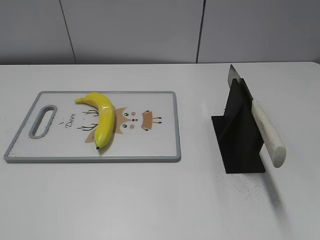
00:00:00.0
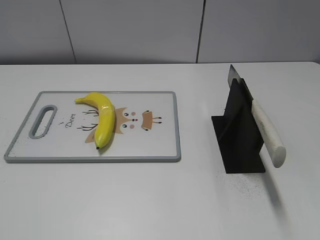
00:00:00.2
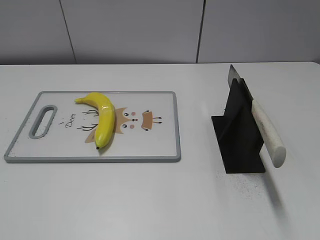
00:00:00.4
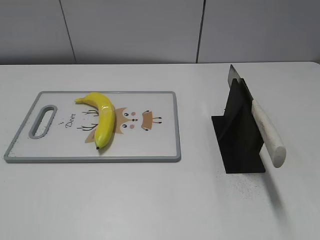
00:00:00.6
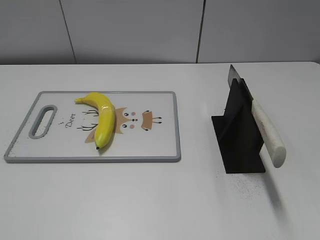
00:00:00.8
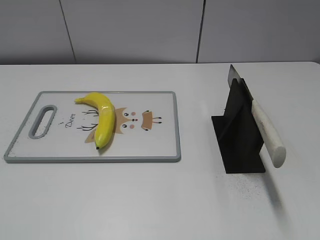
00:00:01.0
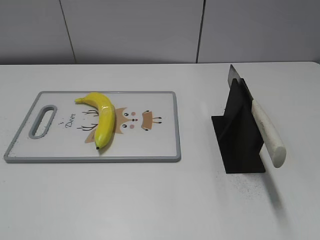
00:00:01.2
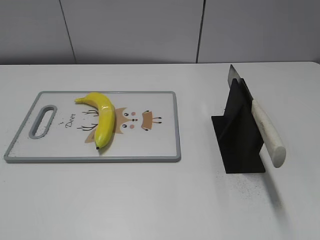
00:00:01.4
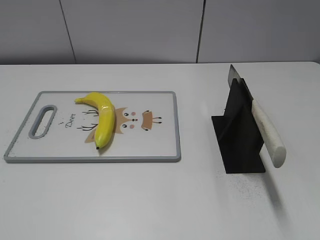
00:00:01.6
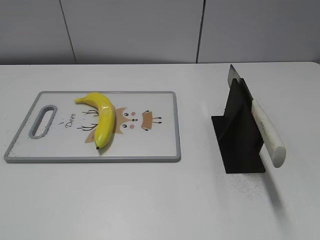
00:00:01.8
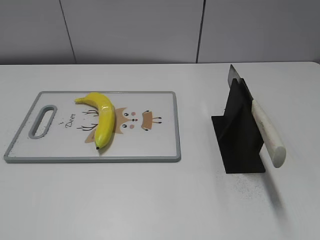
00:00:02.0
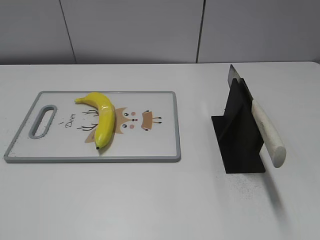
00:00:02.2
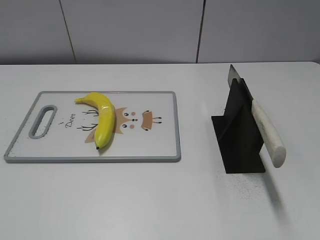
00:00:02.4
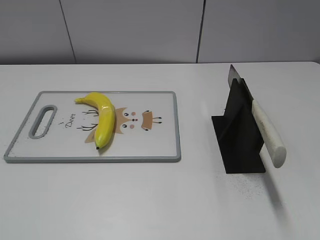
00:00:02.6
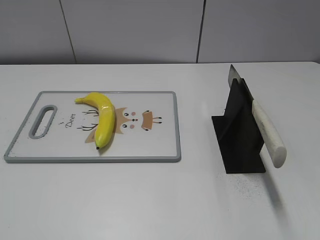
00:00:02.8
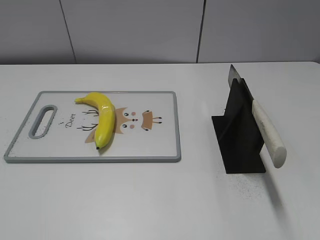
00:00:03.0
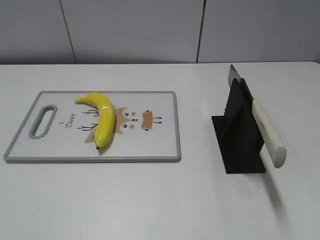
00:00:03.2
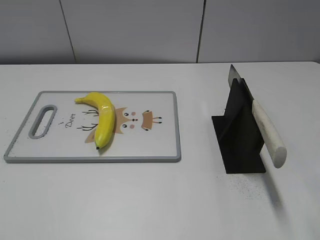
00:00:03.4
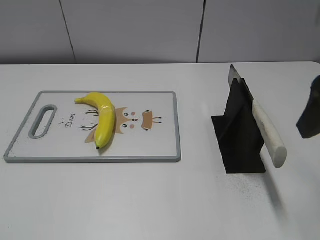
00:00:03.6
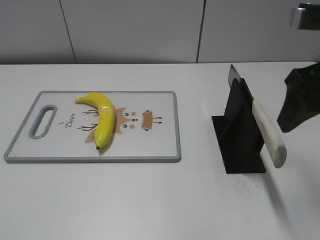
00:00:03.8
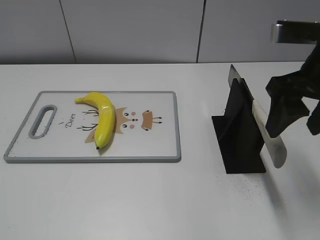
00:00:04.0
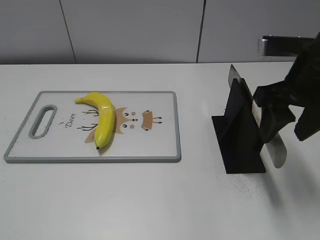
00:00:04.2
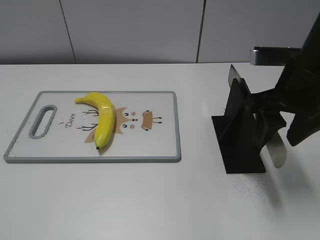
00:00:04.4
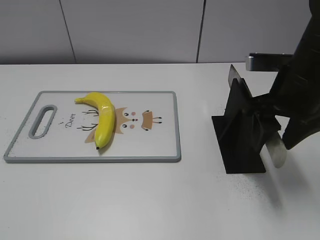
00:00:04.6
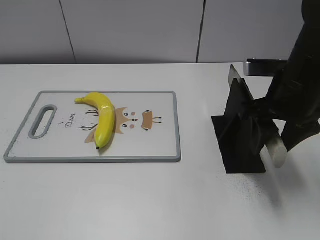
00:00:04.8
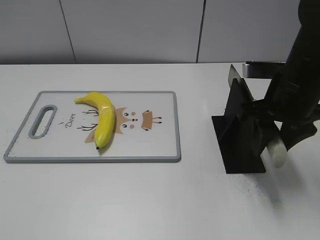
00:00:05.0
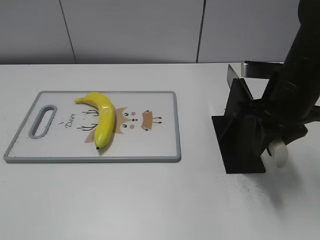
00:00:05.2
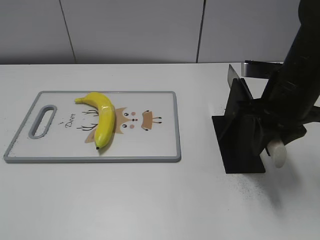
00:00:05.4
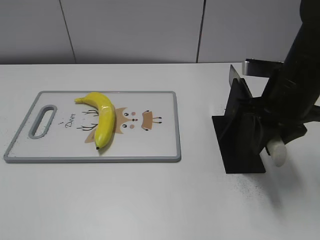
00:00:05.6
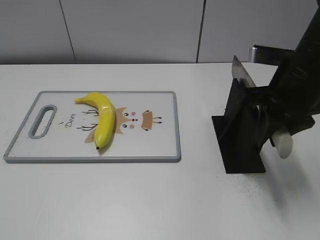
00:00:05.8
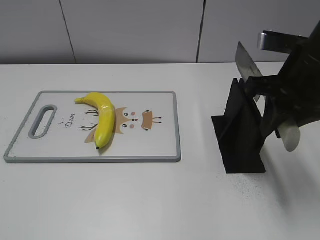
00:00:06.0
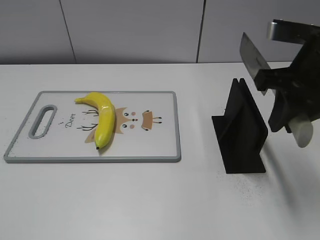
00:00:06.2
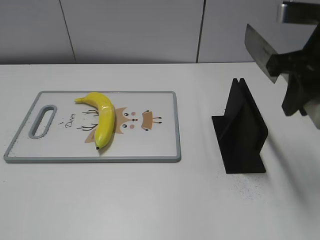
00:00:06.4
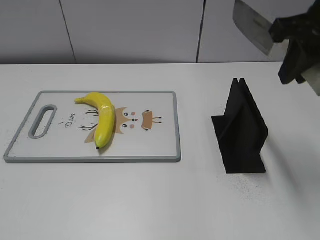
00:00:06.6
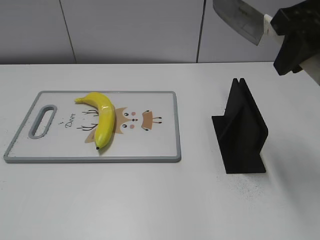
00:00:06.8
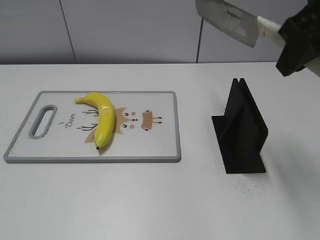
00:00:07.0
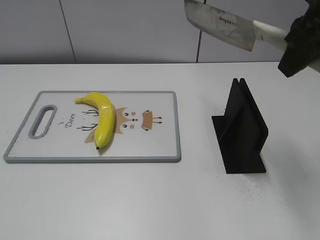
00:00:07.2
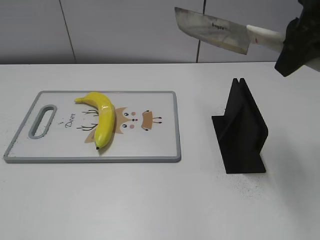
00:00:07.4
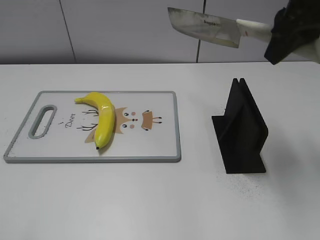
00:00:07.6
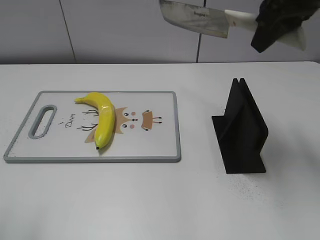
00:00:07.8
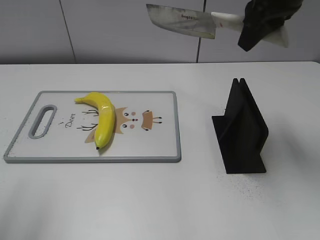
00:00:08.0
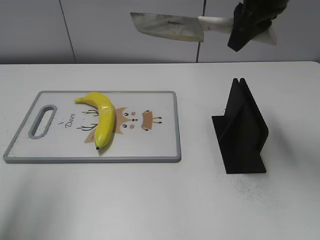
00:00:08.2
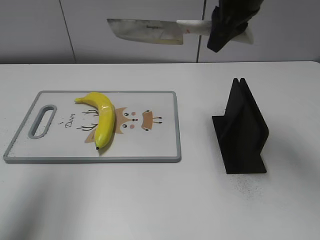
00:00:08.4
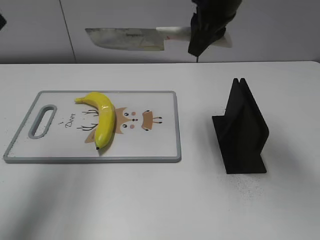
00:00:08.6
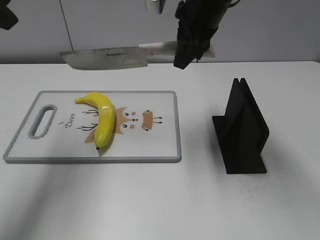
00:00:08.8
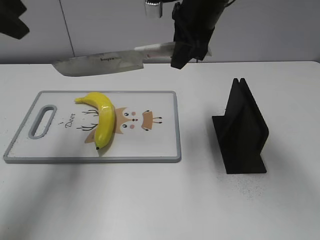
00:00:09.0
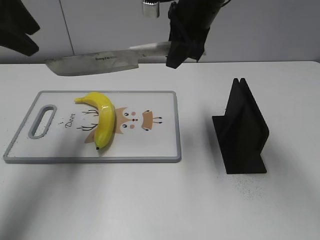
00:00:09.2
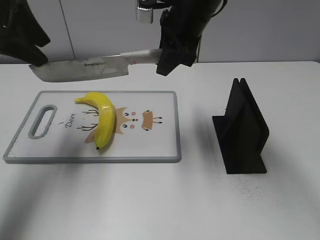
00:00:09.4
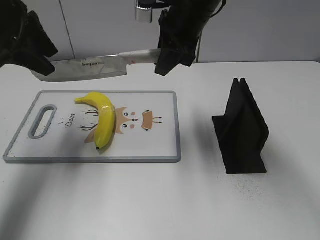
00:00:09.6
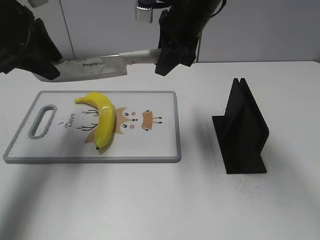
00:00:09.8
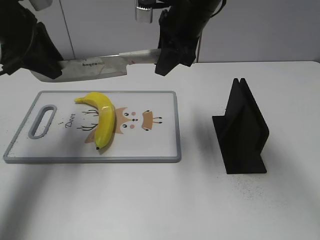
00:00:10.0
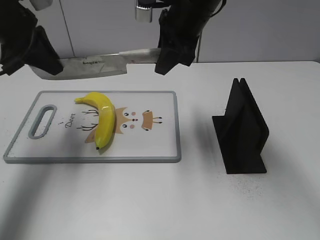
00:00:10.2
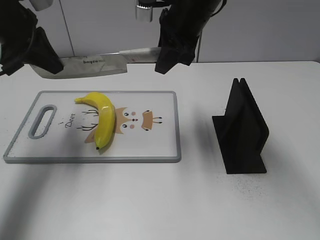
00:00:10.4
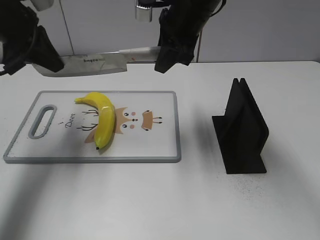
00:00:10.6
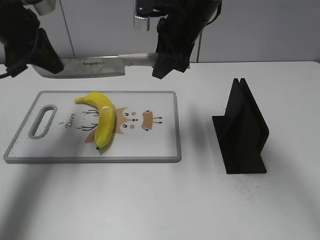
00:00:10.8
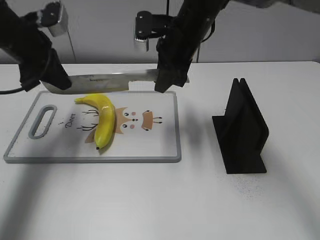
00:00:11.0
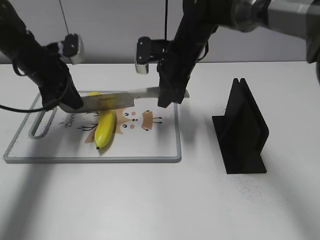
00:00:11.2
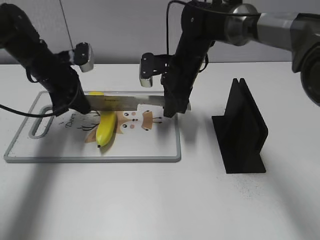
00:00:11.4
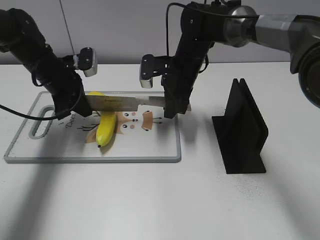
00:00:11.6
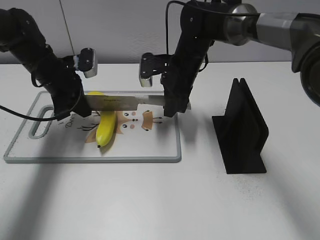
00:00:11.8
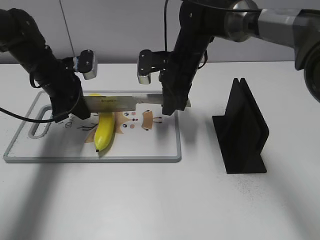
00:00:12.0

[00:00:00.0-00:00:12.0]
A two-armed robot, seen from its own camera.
Task of the whole recording: cut plastic banana.
Step, 00:00:00.0 to 00:00:06.4: Grab the knife handle with your right hand.
00:00:03.0 to 00:00:04.4: The right gripper heads forward, downward and to the left, covering roughly 20 cm.
00:00:04.4 to 00:00:06.0: The right gripper closes.
00:00:06.0 to 00:00:07.6: The left gripper heads upward and forward, covering roughly 10 cm. Meanwhile the right gripper shifts some 10 cm upward.
00:00:07.6 to 00:00:09.0: The left gripper moves forward, roughly 25 cm, while the right gripper goes approximately 15 cm to the left, forward and downward.
00:00:09.0 to 00:00:10.4: The left gripper goes about 10 cm downward and forward, and closes its fingers.
00:00:10.4 to 00:00:12.0: The two grippers go about 15 cm downward.

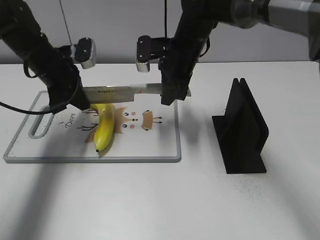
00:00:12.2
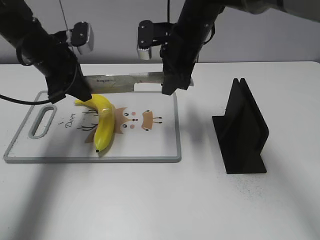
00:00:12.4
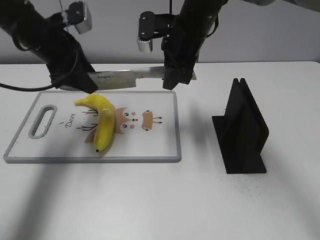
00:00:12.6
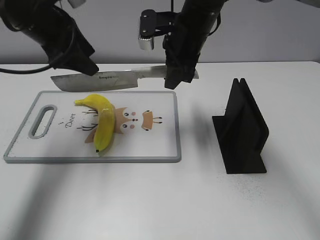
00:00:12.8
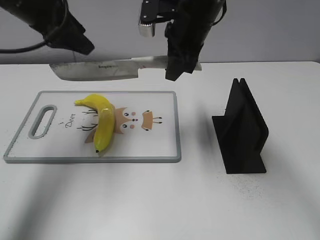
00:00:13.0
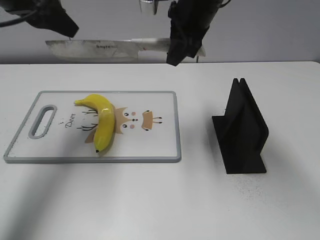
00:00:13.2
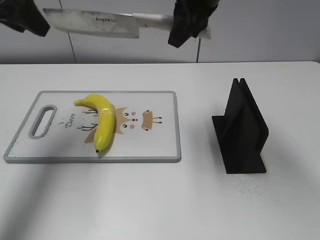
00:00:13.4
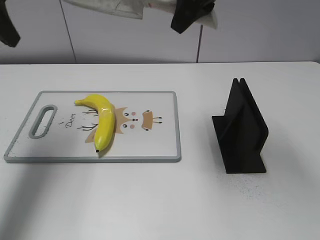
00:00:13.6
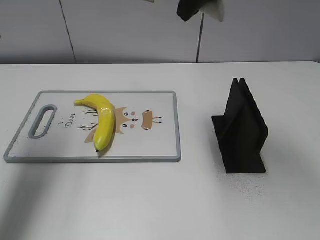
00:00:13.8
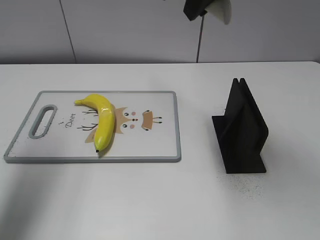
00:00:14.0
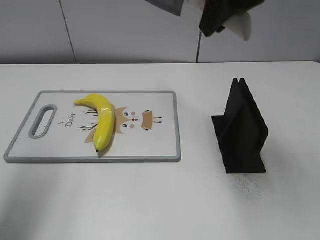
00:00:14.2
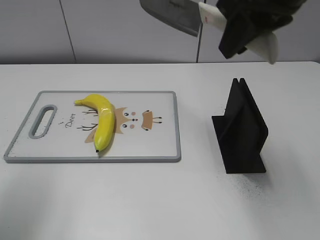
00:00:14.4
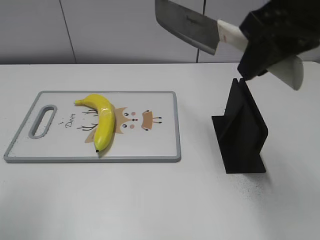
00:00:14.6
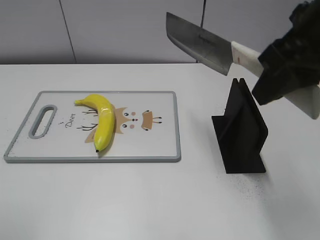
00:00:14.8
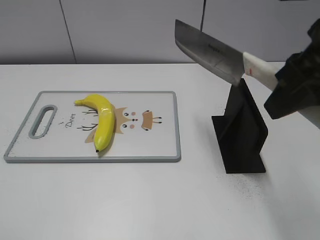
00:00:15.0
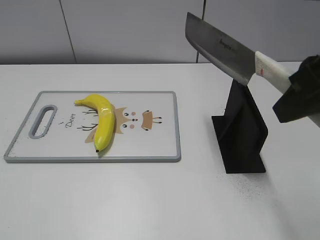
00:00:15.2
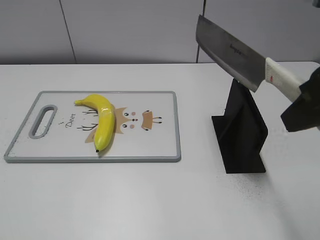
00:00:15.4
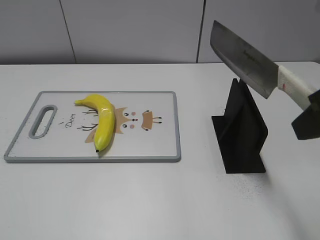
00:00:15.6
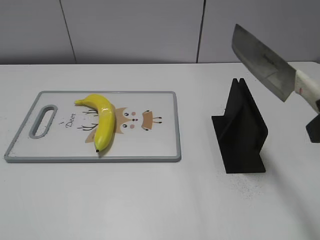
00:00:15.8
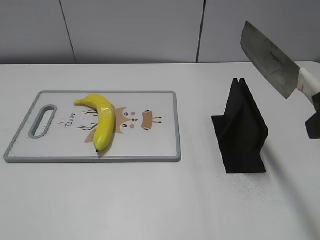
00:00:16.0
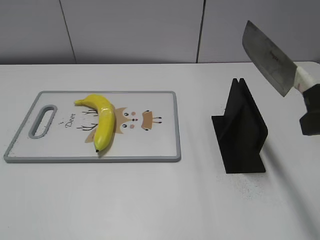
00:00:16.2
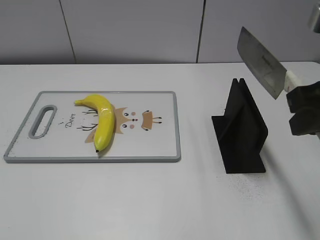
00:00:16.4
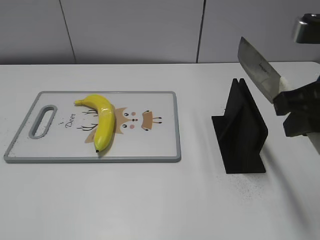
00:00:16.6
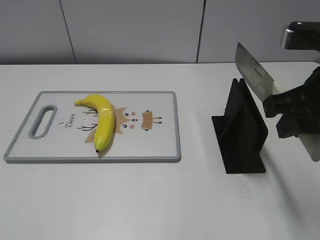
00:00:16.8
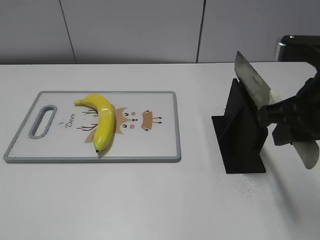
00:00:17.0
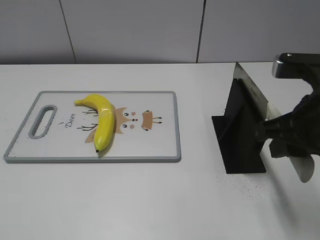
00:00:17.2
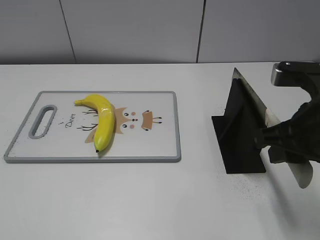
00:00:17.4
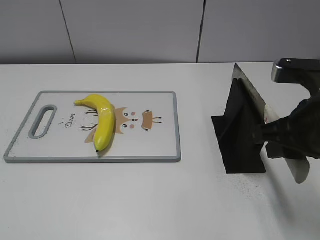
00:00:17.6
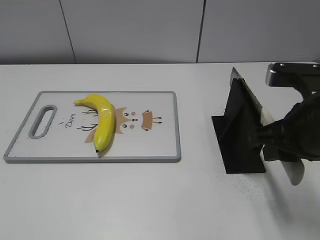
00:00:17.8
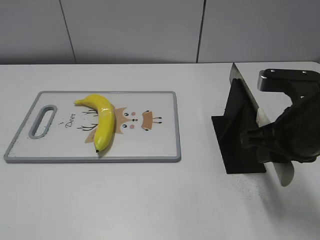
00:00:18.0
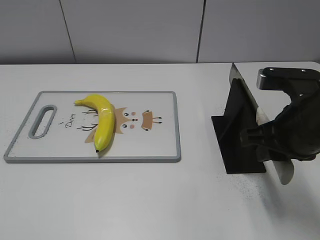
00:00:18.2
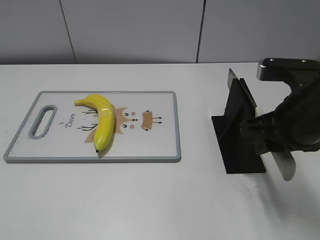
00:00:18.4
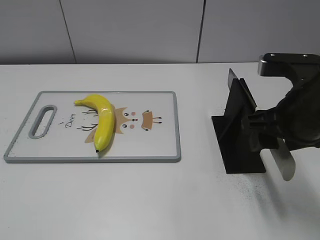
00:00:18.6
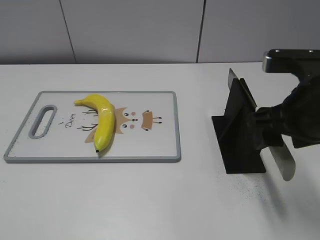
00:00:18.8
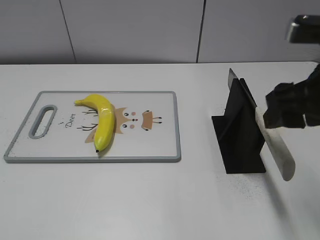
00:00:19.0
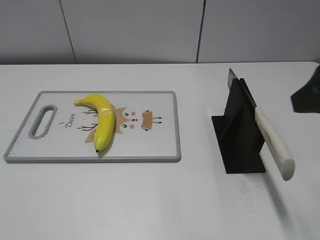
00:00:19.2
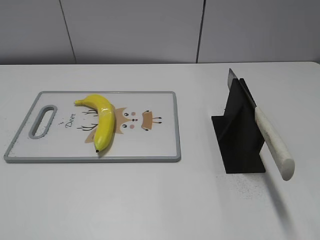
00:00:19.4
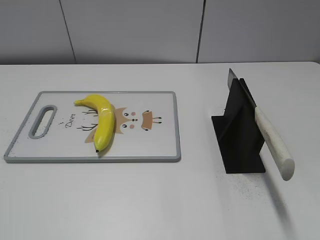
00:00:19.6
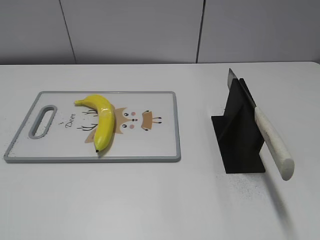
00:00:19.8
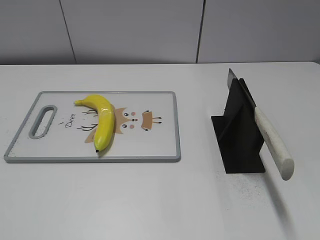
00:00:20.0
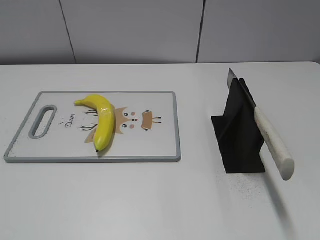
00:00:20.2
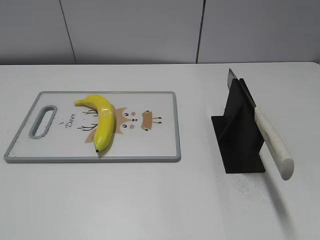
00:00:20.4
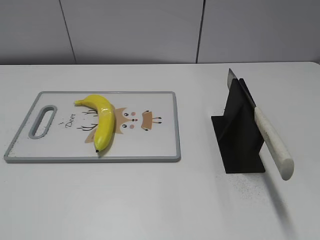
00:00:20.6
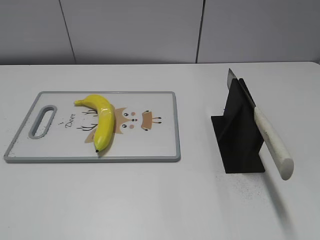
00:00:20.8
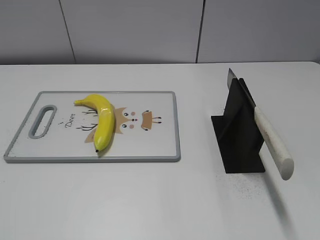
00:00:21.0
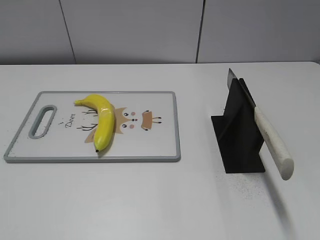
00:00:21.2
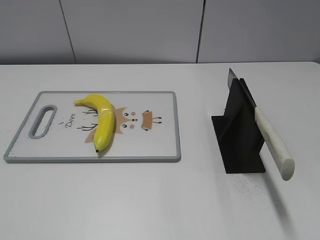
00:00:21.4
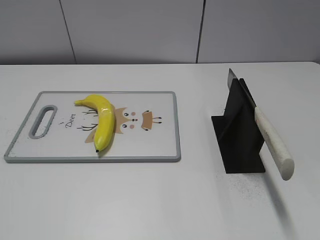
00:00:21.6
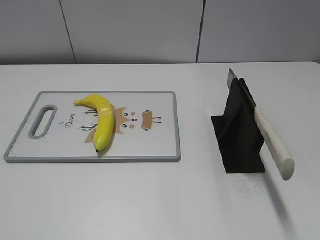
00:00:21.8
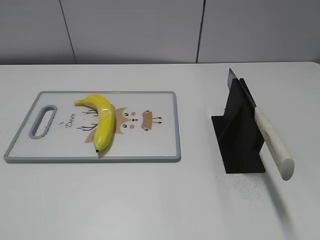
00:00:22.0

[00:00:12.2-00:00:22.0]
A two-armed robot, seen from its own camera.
Task of the whole recording: cut plastic banana.
Step, 00:00:13.2 to 00:00:14.2: Cut the banana with your right hand.
Step, 00:00:14.4 to 00:00:15.2: Lift the knife with your right hand.
Step, 00:00:15.4 to 00:00:22.0: Place the knife on the storage rack with your right hand.
00:00:12.2 to 00:00:13.6: The left gripper is displaced upward, backward and to the left by roughly 20 cm, and opens up; the right gripper moves upward, about 15 cm.
00:00:13.6 to 00:00:15.0: The right gripper travels backward and to the right by approximately 20 cm. The left gripper travels backward by some 25 cm.
00:00:15.0 to 00:00:16.4: The left gripper moves backward and downward, some 10 cm.
00:00:16.4 to 00:00:17.8: The right gripper goes approximately 10 cm downward.
00:00:17.8 to 00:00:19.2: The right gripper moves upward, approximately 10 cm, and opens its fingers.
00:00:19.2 to 00:00:20.6: The right gripper is displaced backward and to the right by some 20 cm.
